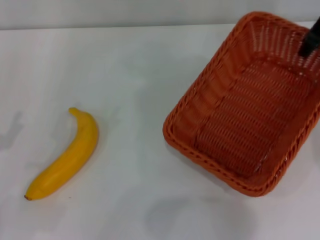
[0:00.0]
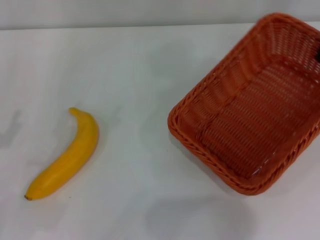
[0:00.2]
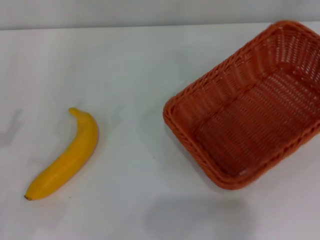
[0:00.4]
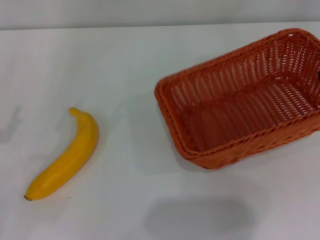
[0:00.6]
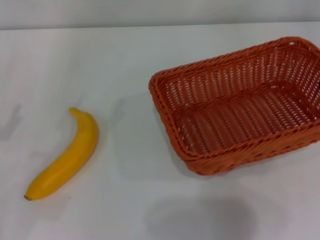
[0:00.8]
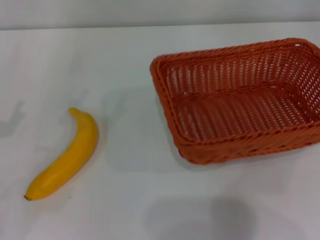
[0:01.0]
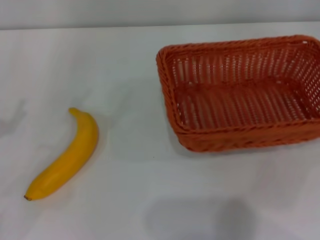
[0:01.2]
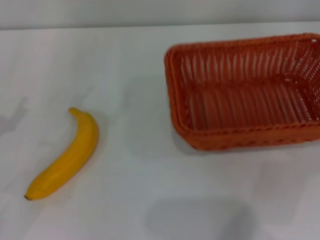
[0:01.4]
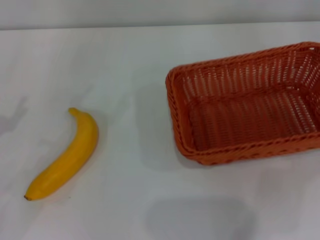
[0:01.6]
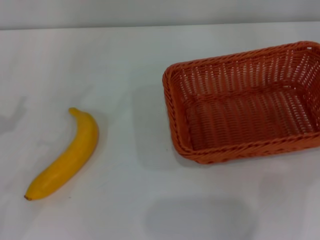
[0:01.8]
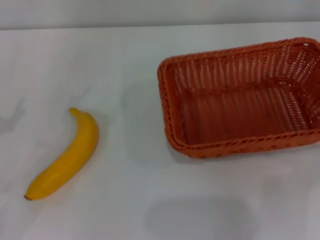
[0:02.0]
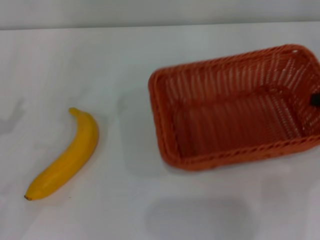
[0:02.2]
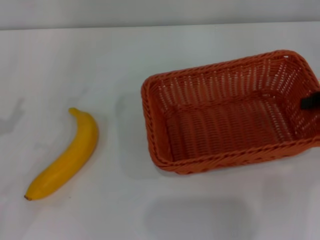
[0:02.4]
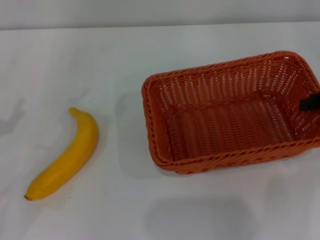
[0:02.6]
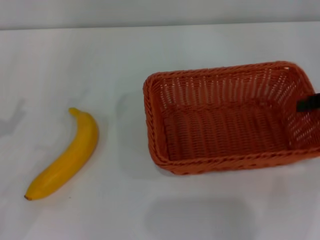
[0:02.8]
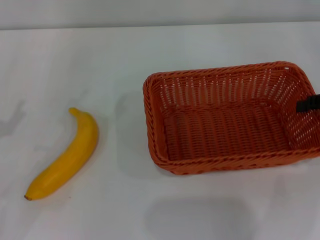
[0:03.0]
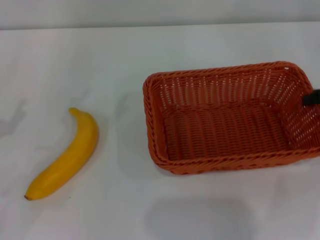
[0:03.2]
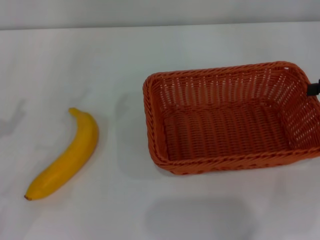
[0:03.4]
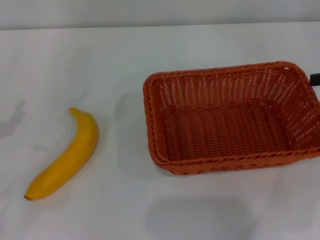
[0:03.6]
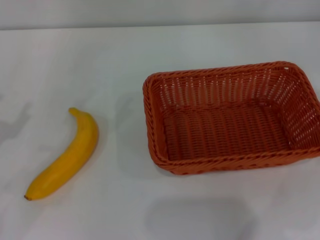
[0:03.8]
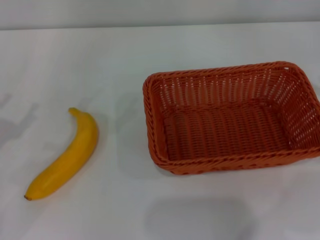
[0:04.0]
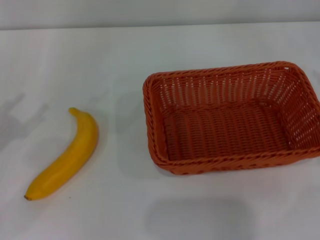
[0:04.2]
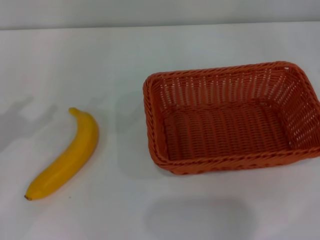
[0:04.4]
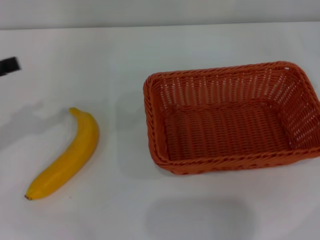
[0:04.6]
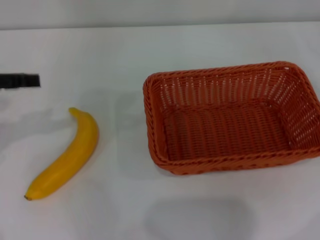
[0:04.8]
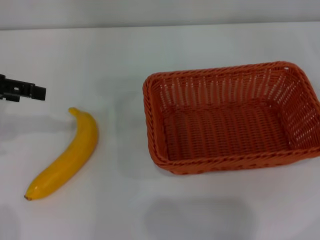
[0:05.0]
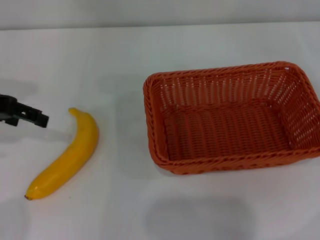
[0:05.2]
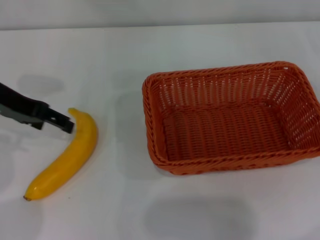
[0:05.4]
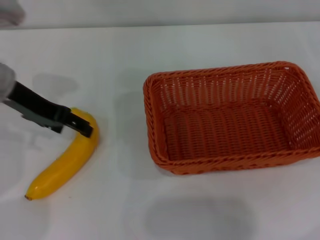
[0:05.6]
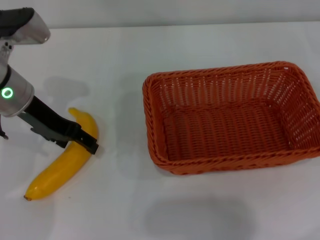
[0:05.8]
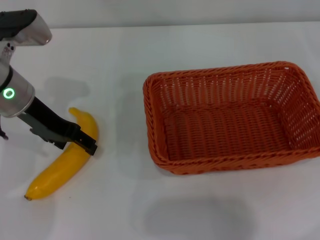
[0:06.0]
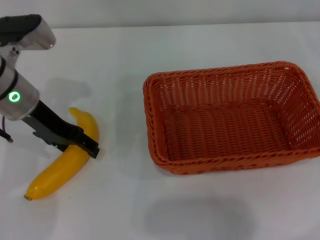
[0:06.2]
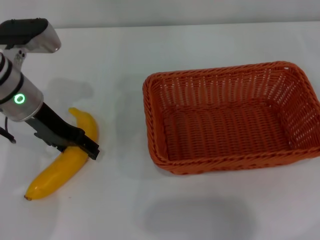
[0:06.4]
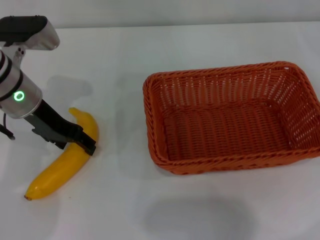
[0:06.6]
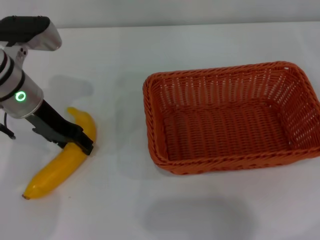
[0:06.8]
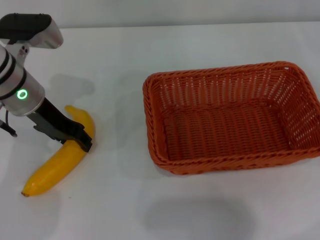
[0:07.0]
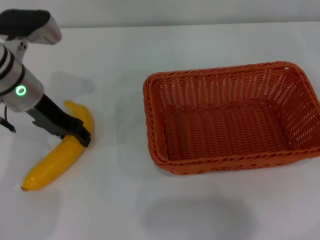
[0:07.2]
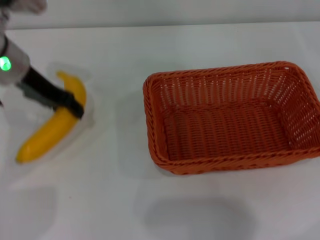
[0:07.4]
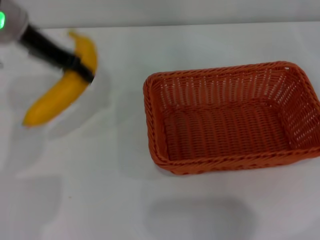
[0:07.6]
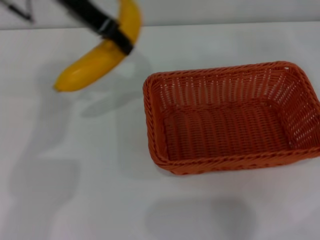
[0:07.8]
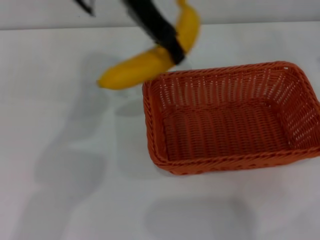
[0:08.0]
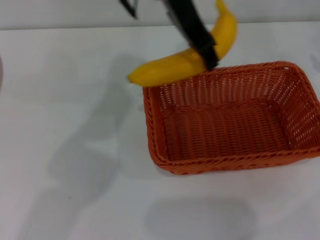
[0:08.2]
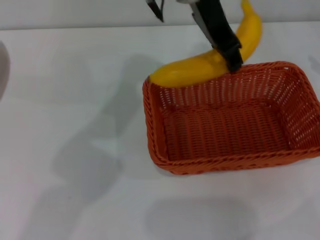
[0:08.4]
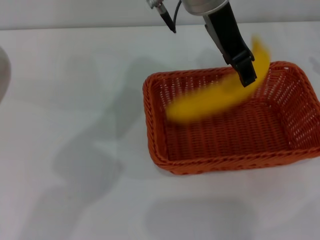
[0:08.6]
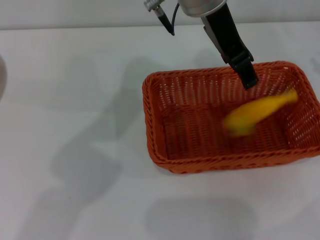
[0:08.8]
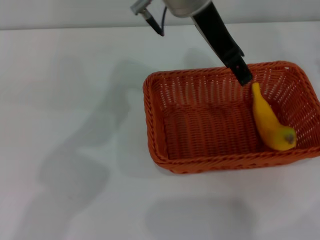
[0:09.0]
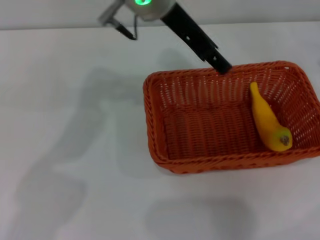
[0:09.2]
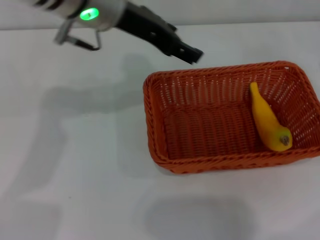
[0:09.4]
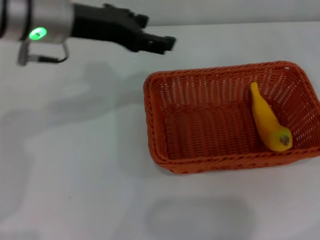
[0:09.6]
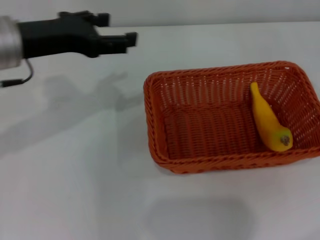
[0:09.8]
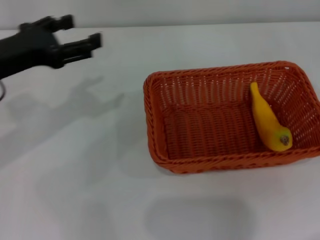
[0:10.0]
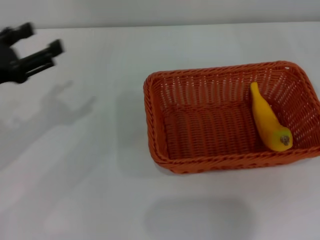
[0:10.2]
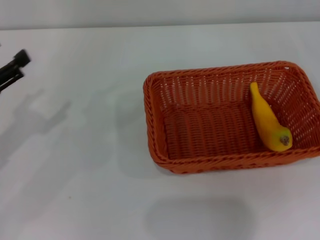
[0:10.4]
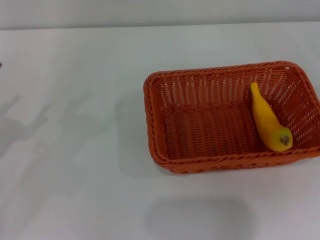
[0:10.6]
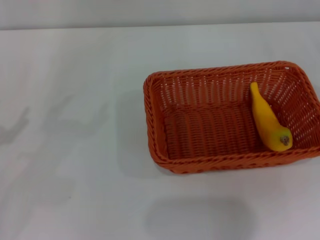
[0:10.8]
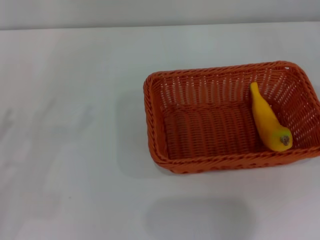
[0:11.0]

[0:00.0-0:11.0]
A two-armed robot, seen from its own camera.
Step, 0:00.4 to 0:03.6: Place the light basket in the center of view with the right gripper.
Step, 0:03.8 to 0:07.6: Pick up the banana with the left gripper.
Step, 0:07.8 to 0:08.8: Place the banana into the light basket with the left gripper.
0:00.0 to 0:01.6: The right gripper goes some 20 cm to the right, backward and downward.
0:01.6 to 0:03.2: The right gripper opens its fingers.
0:03.2 to 0:04.8: The left gripper goes approximately 15 cm upward and forward.
0:04.8 to 0:06.2: The left gripper goes about 15 cm to the right, forward and downward.
0:06.2 to 0:07.8: The left gripper shifts approximately 15 cm upward and to the right, and closes.
0:07.8 to 0:09.4: The left gripper goes to the right and returns, roughly 15 cm each way, and opens.
0:09.4 to 0:11.0: The right gripper shifts some 5 cm downward. The left gripper moves to the left, downward and backward, approximately 35 cm.

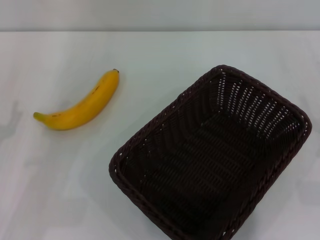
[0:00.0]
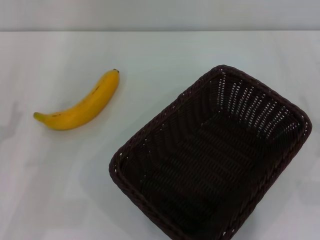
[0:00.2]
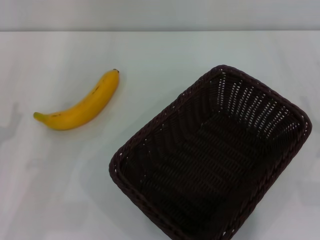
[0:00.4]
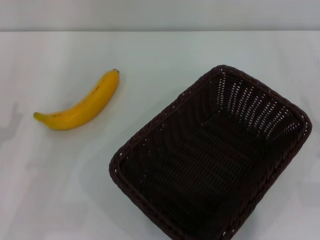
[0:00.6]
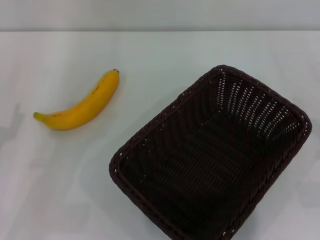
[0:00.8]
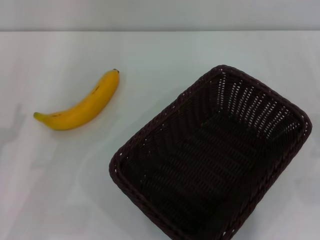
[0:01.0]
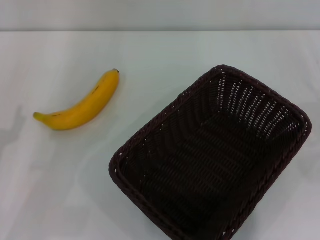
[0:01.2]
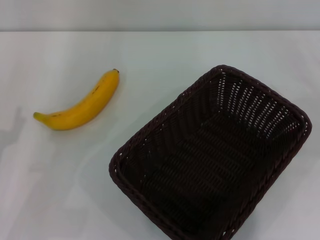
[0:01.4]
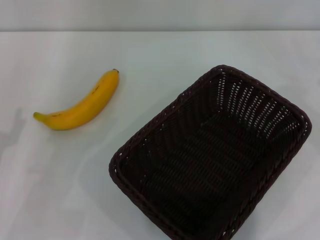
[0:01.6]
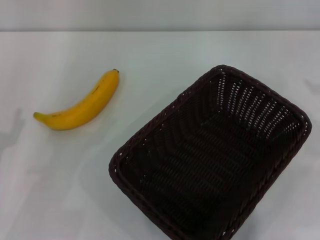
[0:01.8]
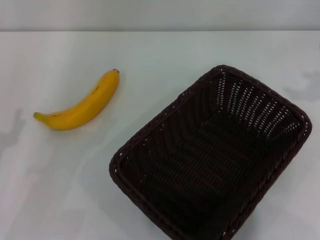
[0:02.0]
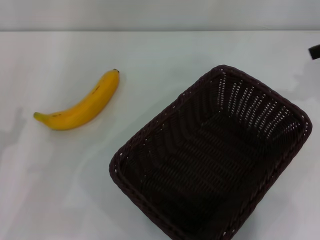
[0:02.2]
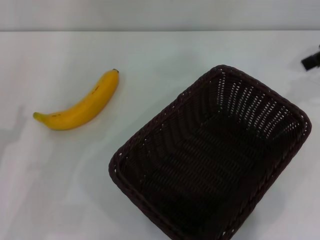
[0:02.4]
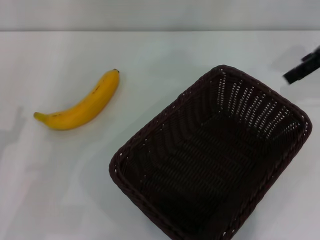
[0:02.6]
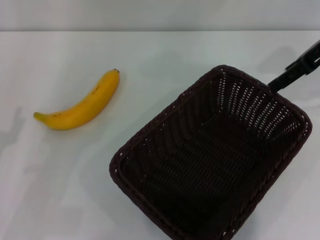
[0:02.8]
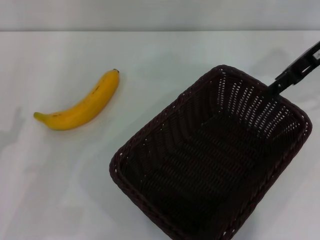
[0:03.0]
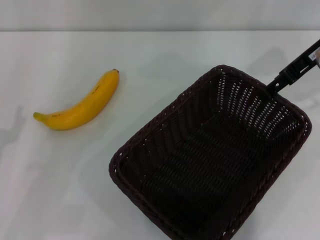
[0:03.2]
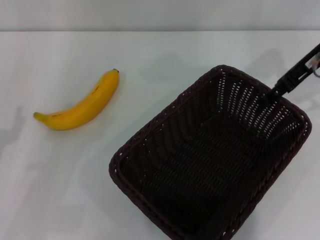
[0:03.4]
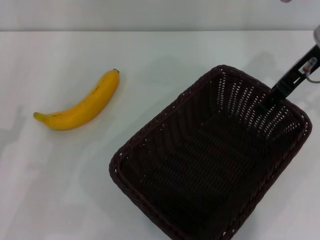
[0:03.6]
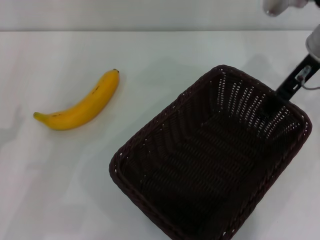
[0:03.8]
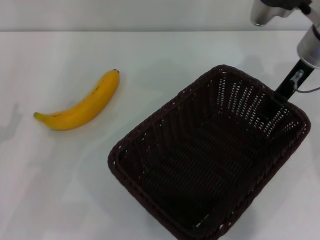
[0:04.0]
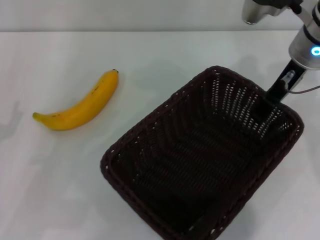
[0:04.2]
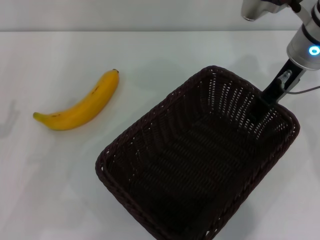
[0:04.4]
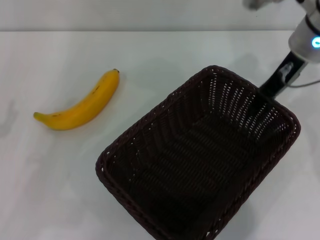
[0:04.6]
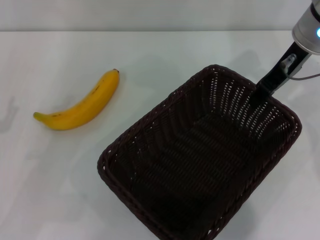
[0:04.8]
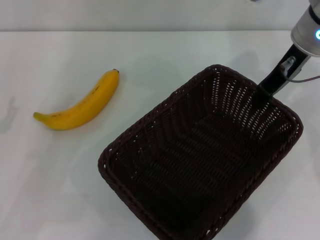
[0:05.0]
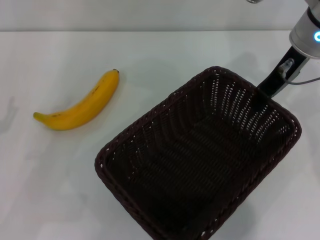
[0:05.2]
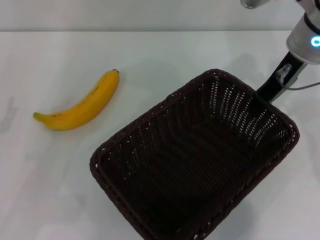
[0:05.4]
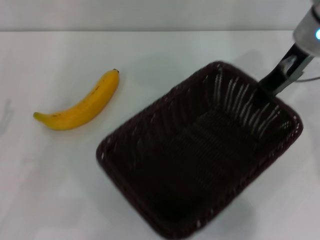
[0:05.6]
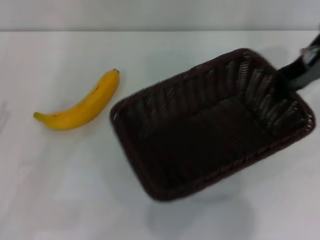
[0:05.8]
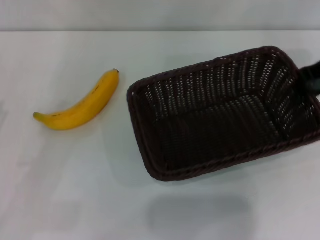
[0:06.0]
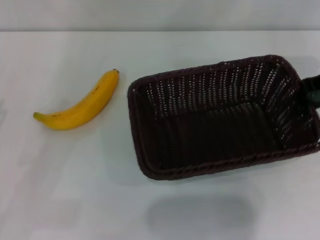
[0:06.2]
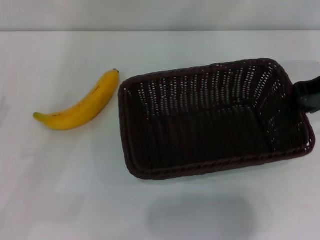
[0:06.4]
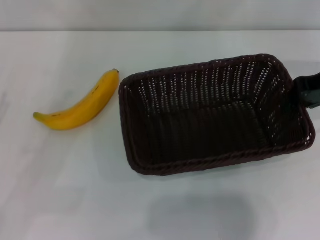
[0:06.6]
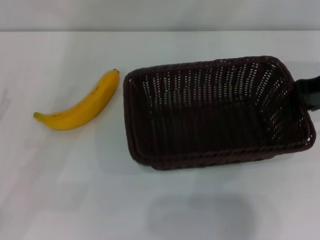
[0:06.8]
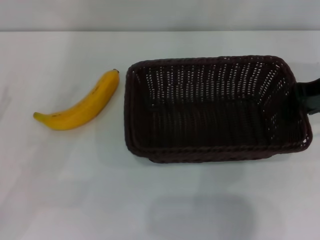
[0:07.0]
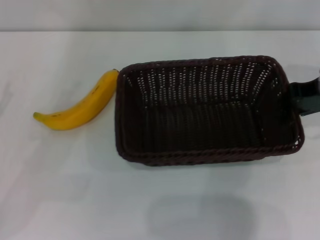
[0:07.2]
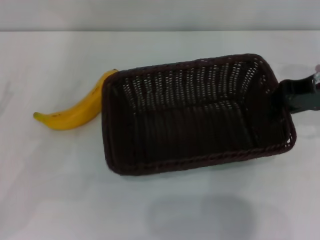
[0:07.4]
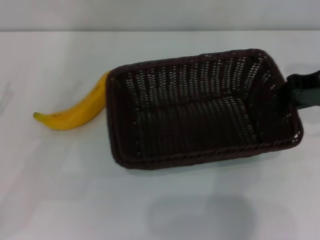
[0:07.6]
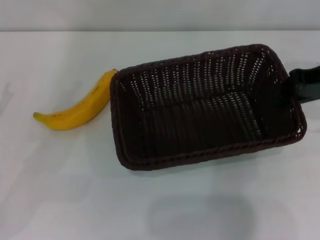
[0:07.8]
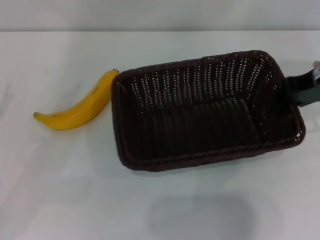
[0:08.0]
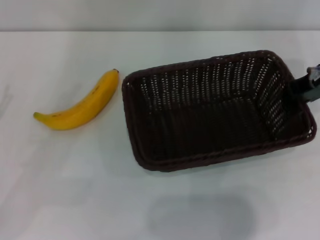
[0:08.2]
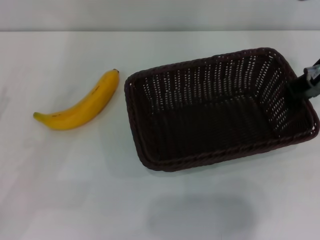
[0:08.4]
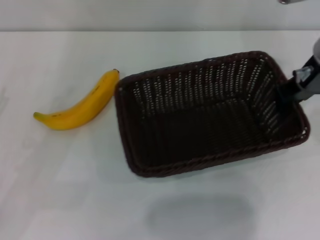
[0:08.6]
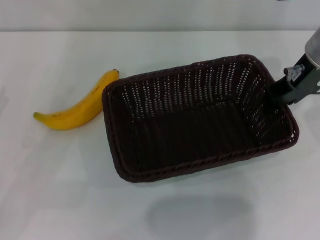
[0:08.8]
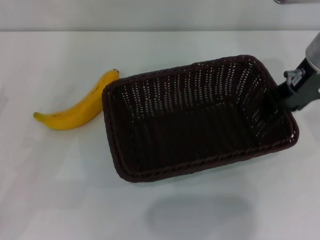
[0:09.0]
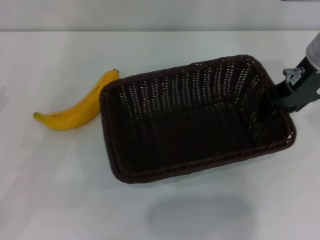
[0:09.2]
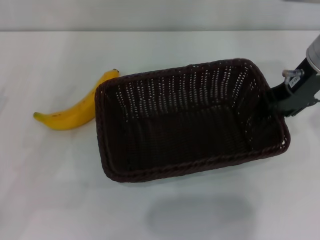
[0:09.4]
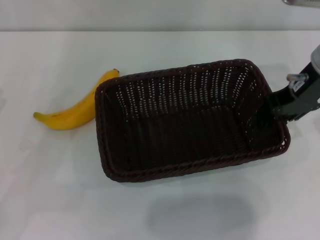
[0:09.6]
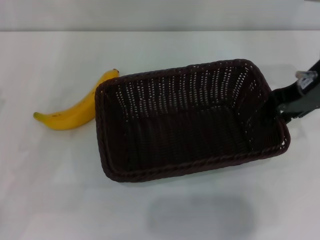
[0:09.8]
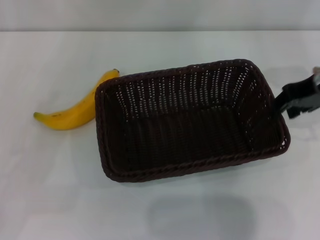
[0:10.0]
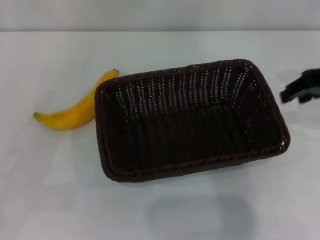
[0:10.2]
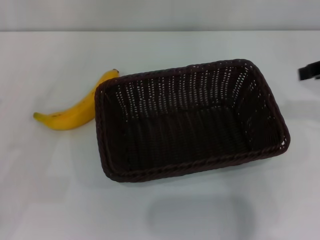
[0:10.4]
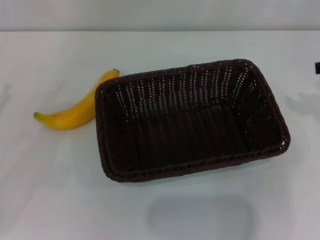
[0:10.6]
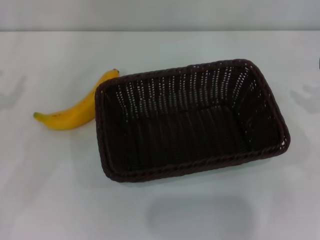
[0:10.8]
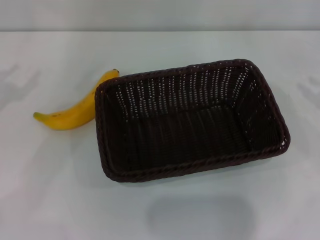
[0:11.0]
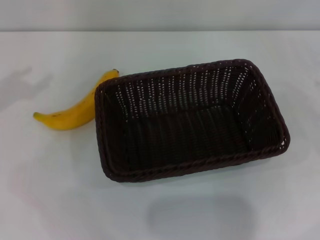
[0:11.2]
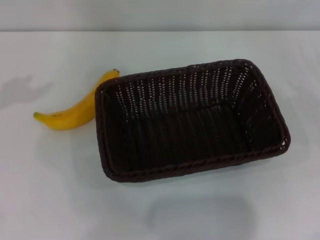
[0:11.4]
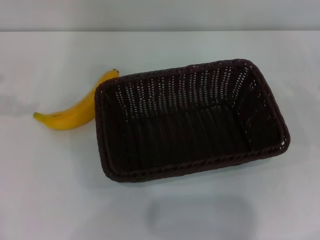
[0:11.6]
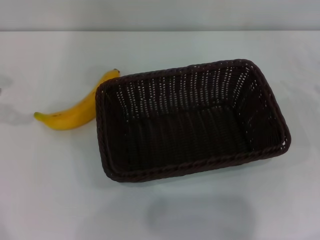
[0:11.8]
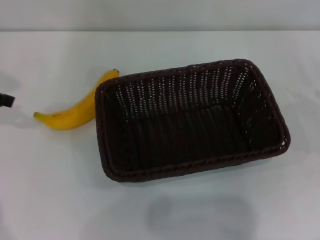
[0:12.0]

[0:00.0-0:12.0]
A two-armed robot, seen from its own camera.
Step, 0:00.0 to 0:05.4: Pick up the dark basket with the right gripper.
Step, 0:05.8 to 0:10.0: Place the dark basket in the center of view with the right gripper.
0:01.6 to 0:03.0: The right gripper goes about 20 cm to the left and forward.
0:03.0 to 0:04.4: The right gripper travels to the left by roughly 5 cm.
0:04.4 to 0:06.0: The right gripper is displaced to the right by roughly 5 cm, and closes up.
0:06.0 to 0:07.6: The right gripper shifts by roughly 5 cm; the left gripper changes place by roughly 5 cm.
0:07.6 to 0:09.0: The right gripper travels to the left by approximately 10 cm.
0:09.0 to 0:10.4: The right gripper moves to the right and backward, approximately 10 cm.
0:10.4 to 0:12.0: The right gripper moves downward and to the right, about 20 cm.
